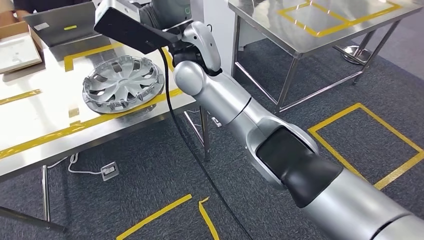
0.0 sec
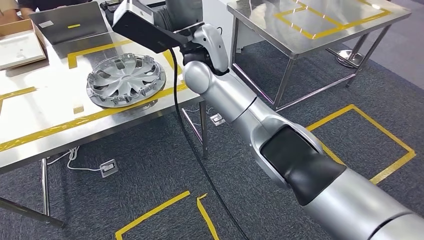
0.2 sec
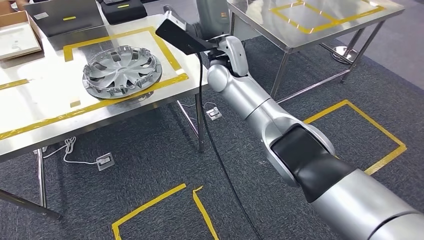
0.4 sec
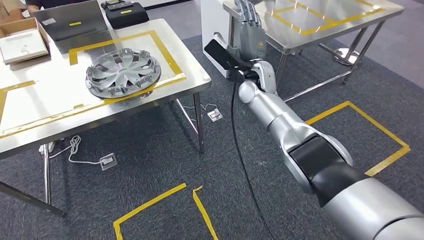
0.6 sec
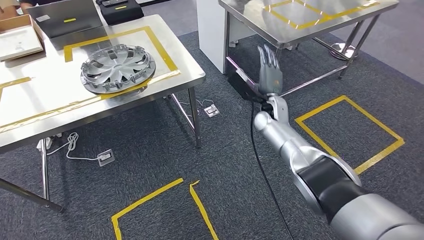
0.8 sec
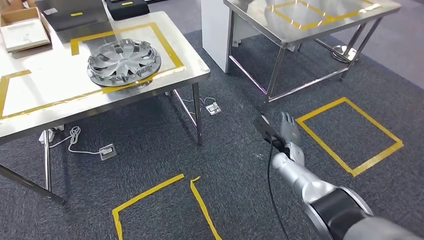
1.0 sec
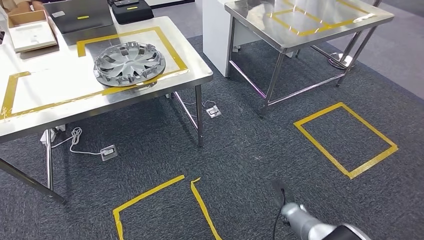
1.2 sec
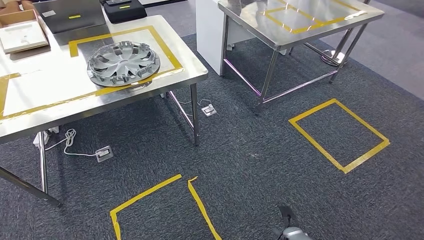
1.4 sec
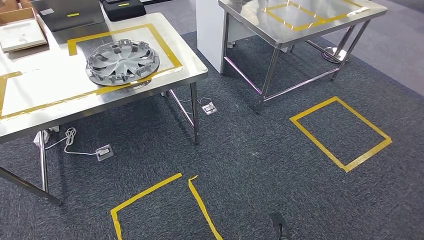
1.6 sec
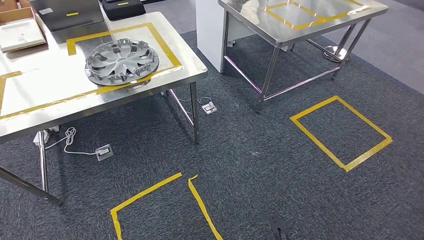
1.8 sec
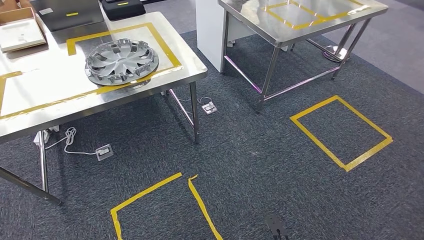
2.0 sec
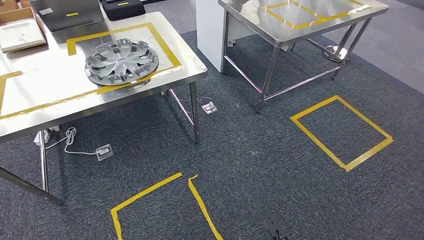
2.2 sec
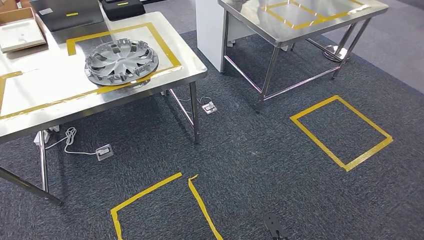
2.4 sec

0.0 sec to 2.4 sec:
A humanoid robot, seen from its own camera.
Step, 0.0 sec to 2.4 sec: Return to the initial position at the workbench.

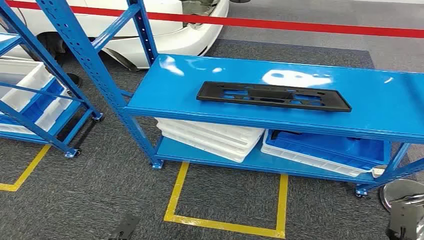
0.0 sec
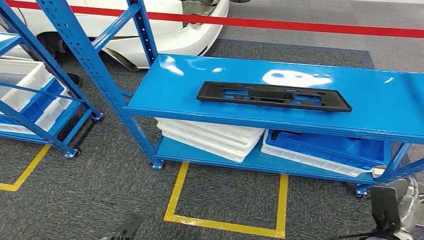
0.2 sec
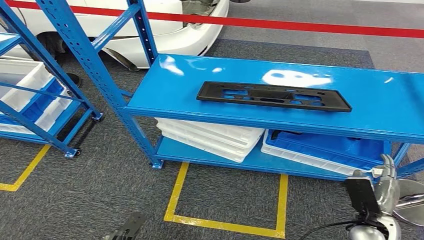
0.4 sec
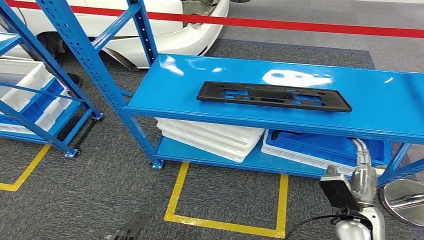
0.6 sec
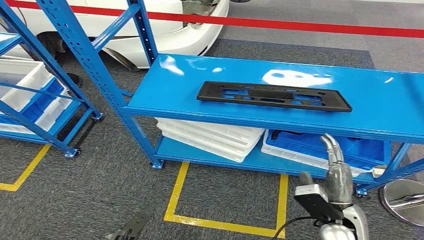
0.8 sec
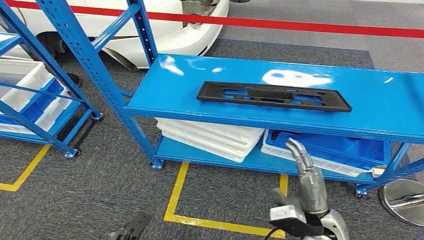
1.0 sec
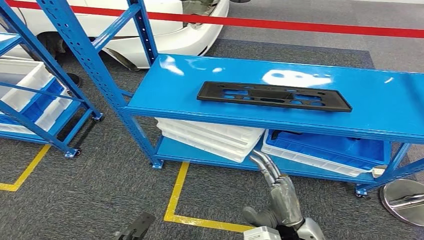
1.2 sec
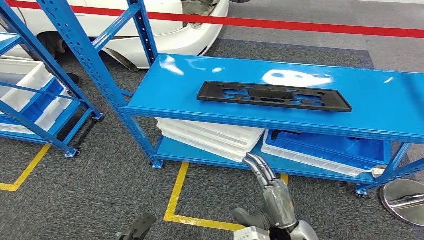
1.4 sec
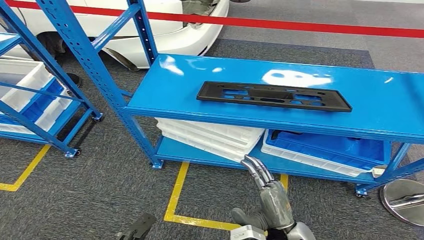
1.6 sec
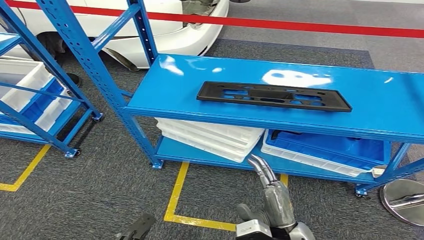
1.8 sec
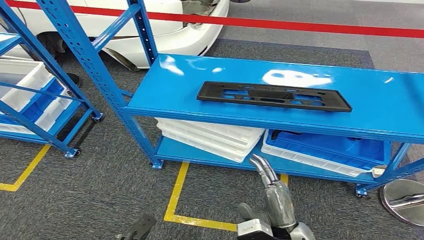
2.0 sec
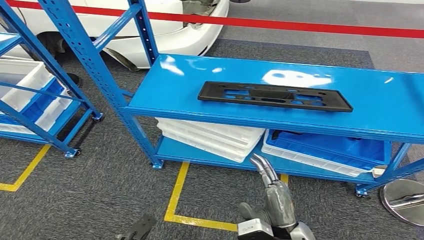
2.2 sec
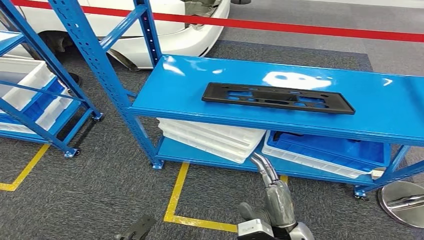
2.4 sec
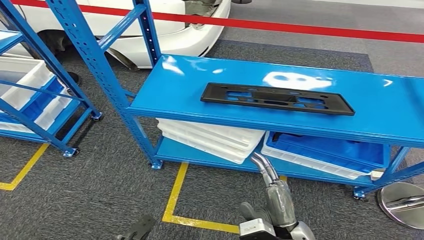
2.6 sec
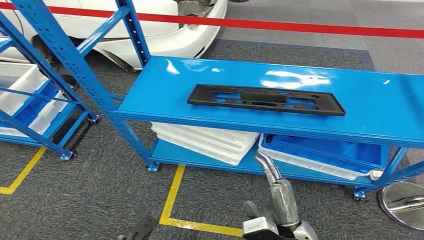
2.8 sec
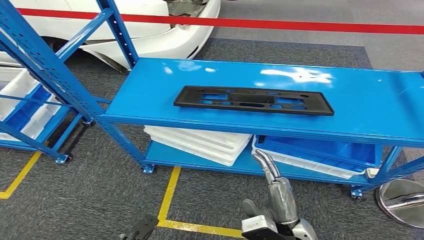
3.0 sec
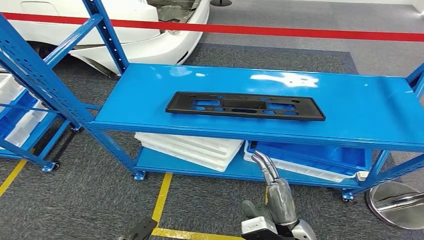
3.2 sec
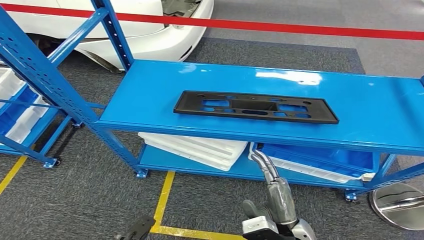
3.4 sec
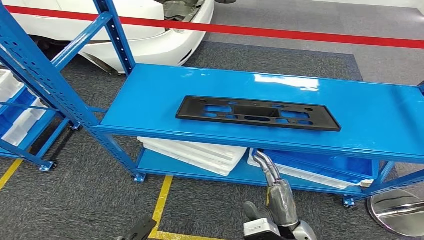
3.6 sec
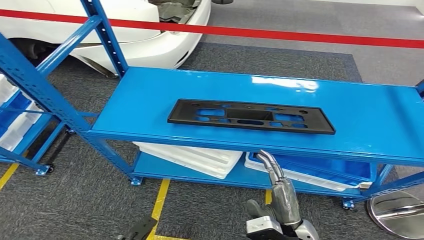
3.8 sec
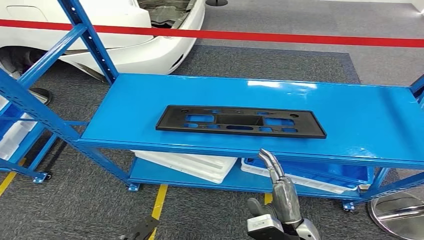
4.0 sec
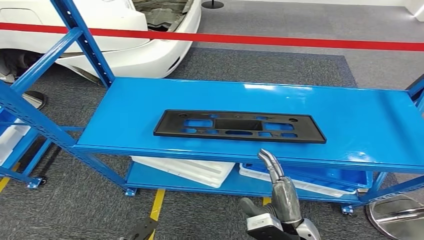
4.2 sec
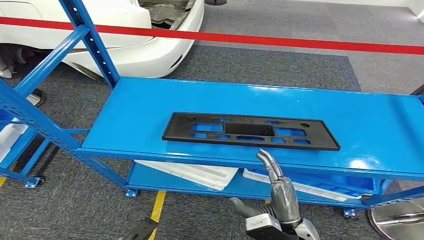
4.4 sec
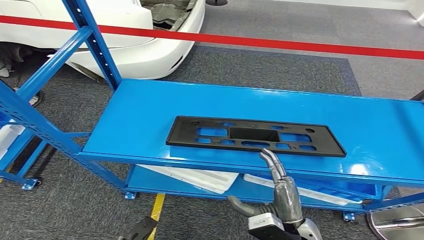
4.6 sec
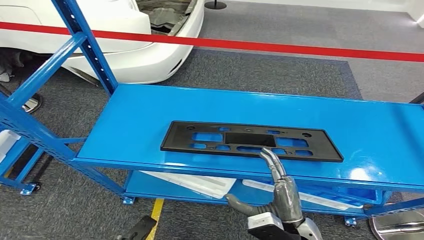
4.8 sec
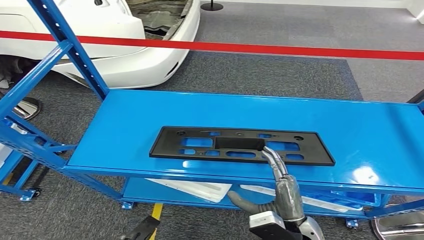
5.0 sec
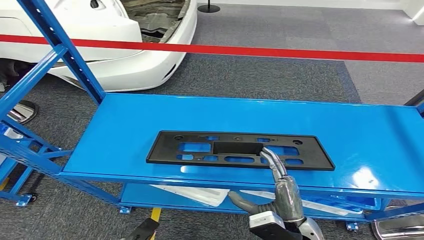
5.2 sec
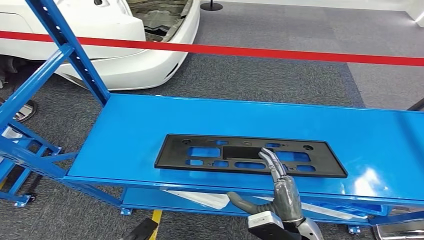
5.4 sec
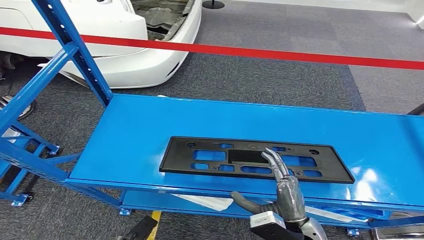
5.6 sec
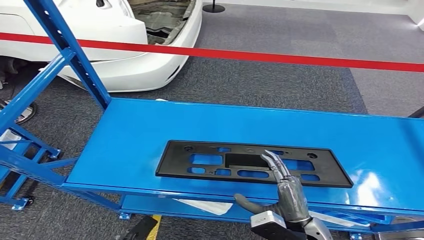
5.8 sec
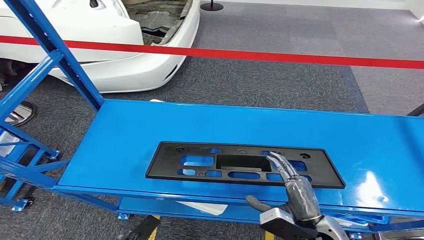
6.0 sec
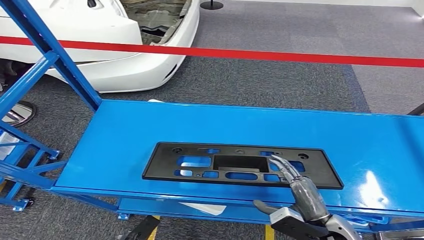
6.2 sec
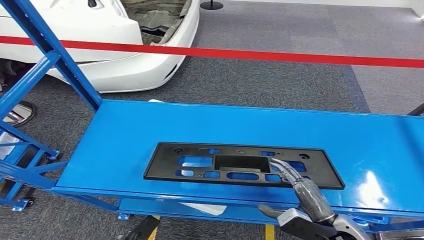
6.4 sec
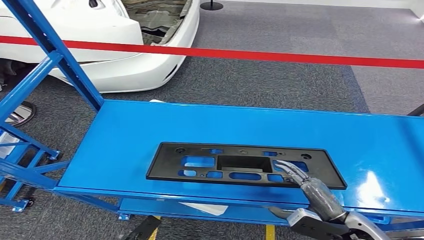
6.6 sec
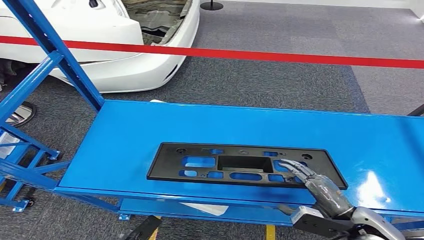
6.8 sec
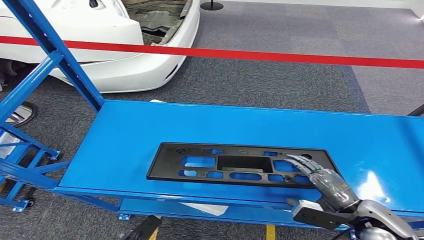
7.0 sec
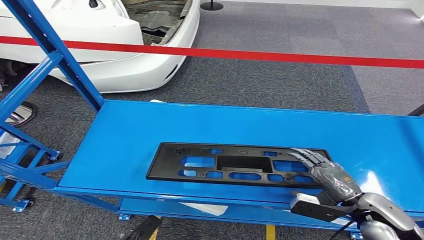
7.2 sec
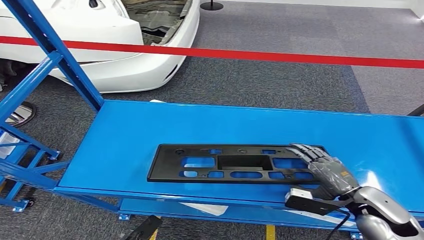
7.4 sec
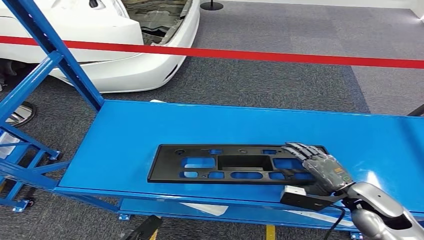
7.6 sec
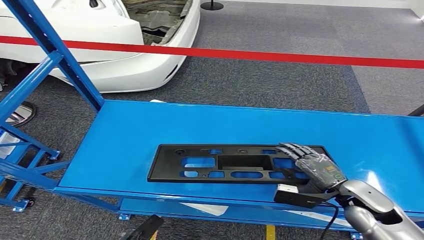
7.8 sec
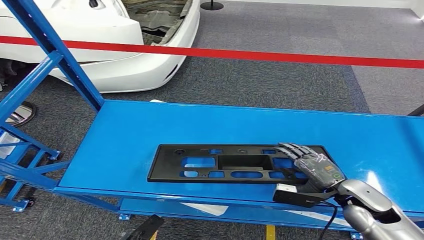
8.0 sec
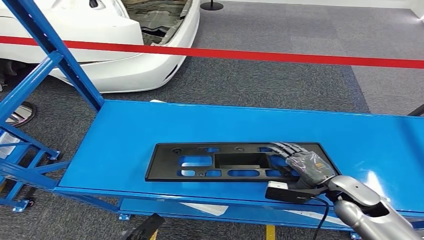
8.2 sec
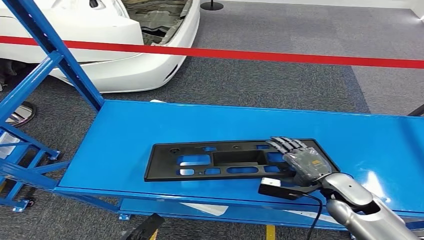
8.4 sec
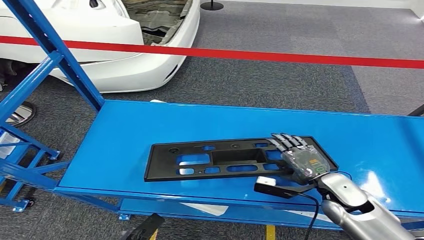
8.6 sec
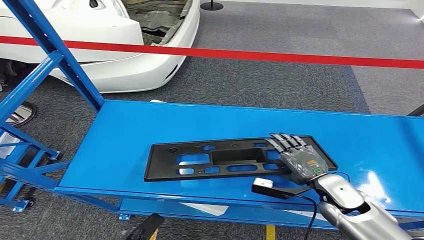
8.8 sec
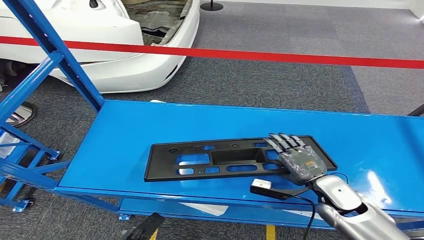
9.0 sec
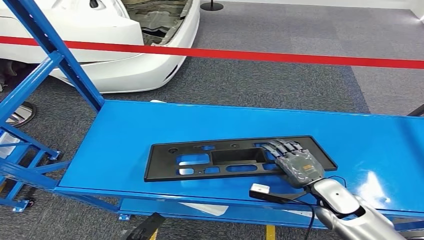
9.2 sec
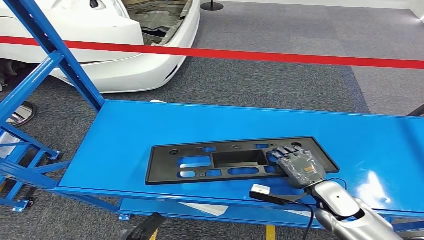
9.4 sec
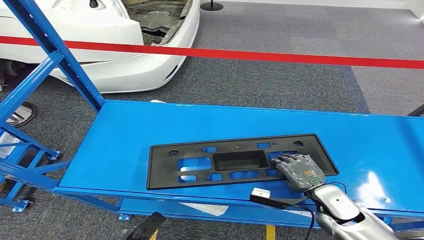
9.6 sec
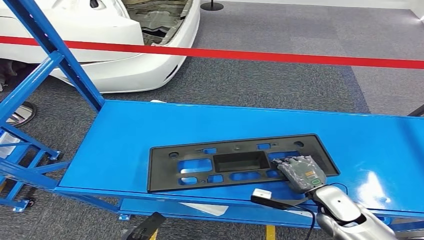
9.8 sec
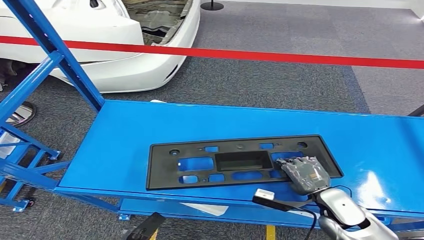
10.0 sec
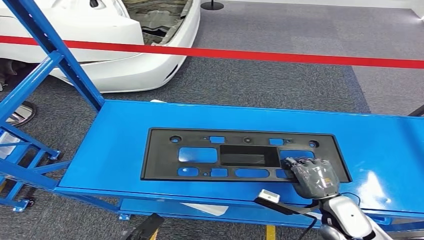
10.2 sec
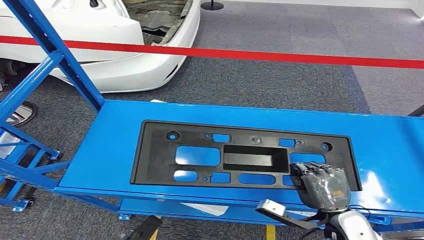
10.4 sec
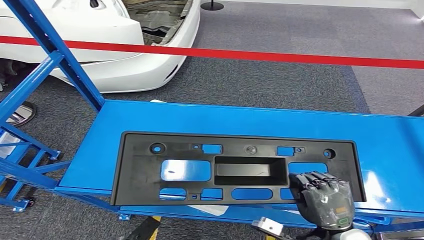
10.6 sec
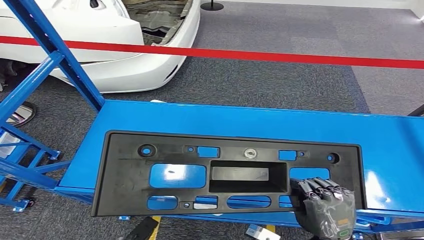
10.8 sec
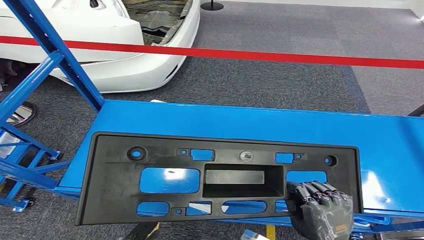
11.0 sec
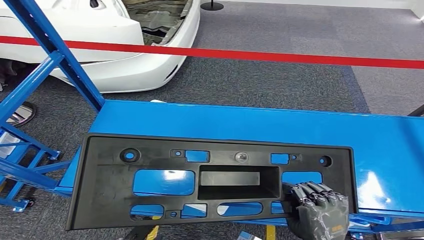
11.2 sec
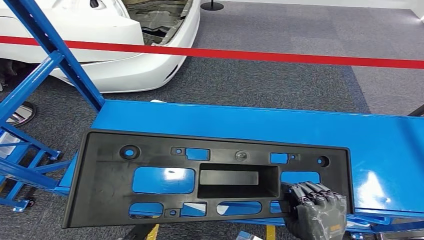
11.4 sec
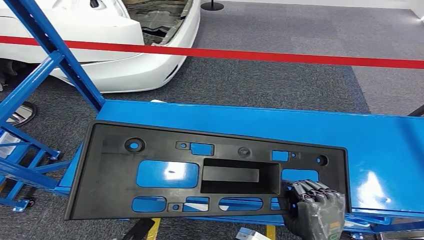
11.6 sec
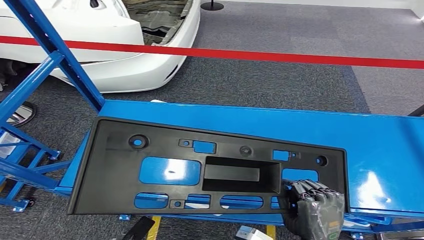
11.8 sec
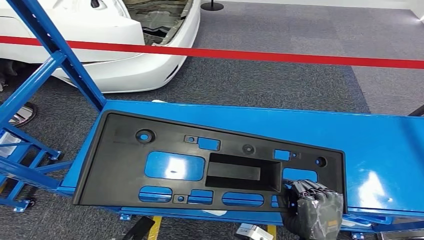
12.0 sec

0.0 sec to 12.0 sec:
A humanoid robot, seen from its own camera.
Step, 0.0 sec to 11.4 sec: Pick up the large parts from the shelf.
6.0 sec to 7.6 sec: The right hand heads to the right and forward, covering about 15 cm.
7.6 sec to 9.0 sec: The right hand is displaced to the left by roughly 5 cm.
9.0 sec to 10.4 sec: The right hand moves backward, roughly 10 cm.

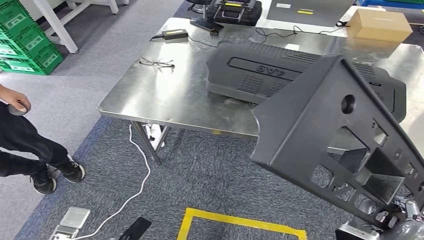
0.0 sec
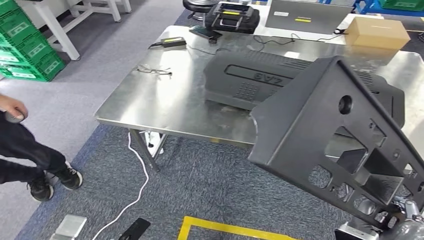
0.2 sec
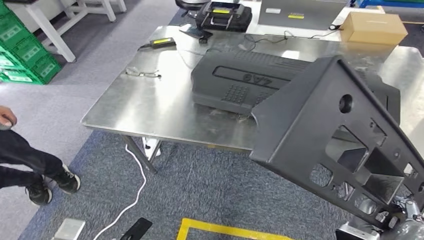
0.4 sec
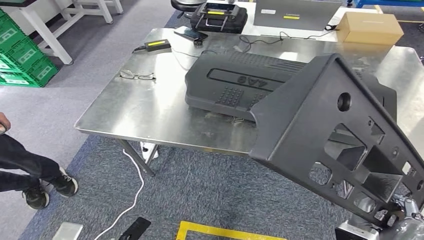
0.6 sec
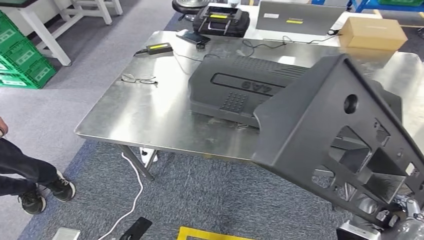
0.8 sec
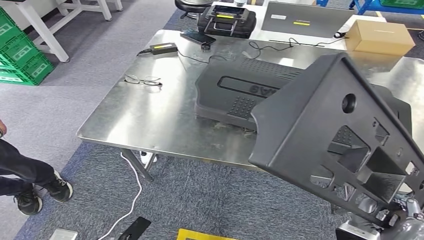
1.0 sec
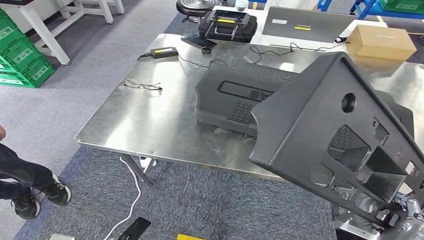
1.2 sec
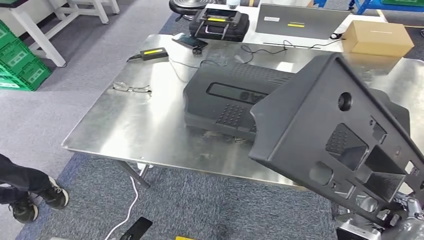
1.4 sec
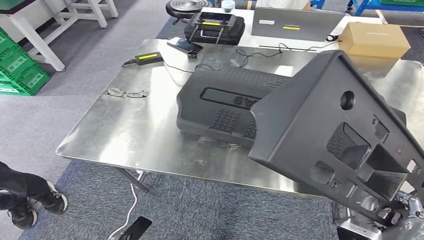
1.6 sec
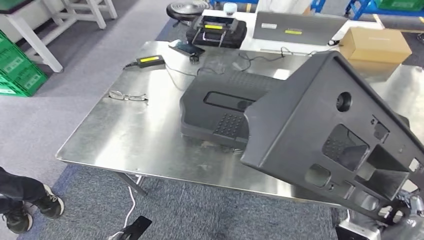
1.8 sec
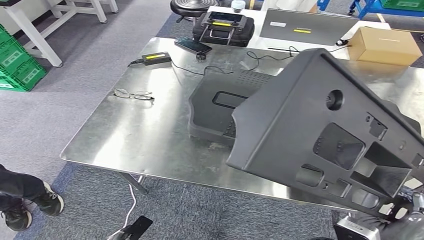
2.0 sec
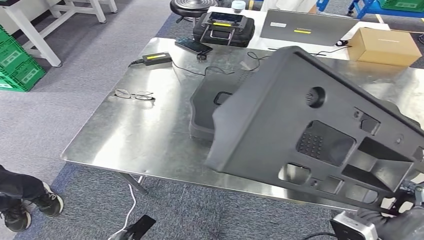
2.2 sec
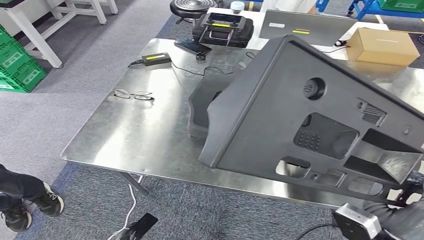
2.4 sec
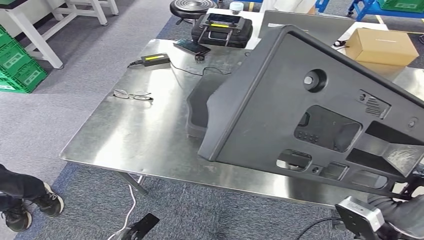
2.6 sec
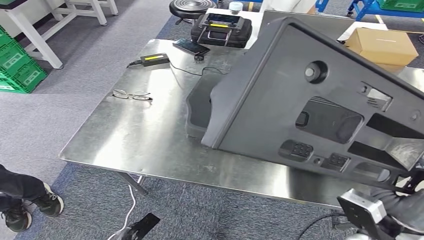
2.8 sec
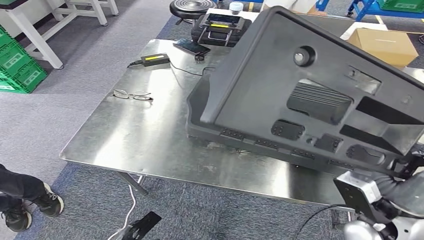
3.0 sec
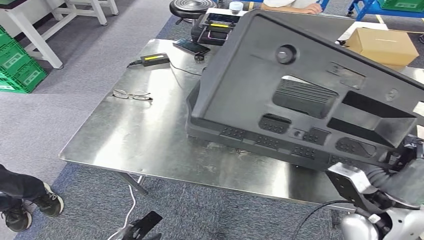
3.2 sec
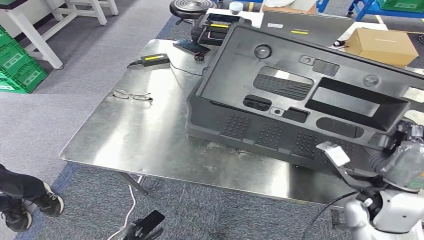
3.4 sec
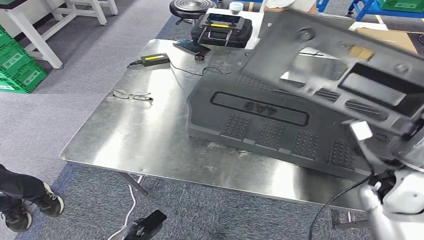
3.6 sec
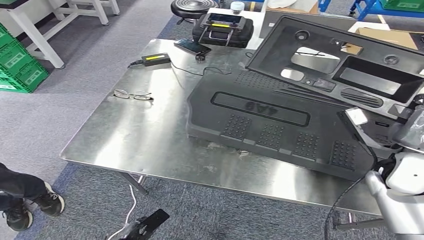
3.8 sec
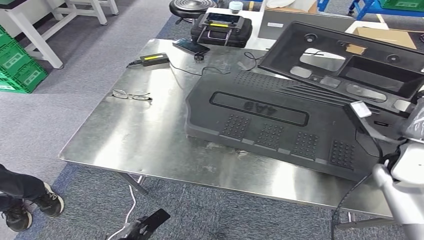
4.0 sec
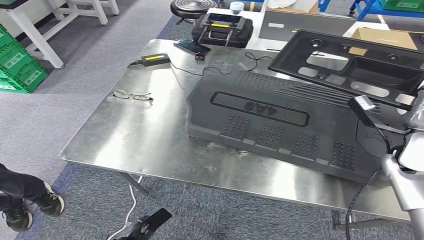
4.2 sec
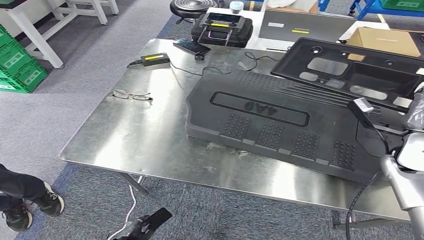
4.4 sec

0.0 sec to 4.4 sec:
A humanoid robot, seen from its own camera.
Step, 0.0 sec to 2.2 sec: Move the large parts to the workbench.
